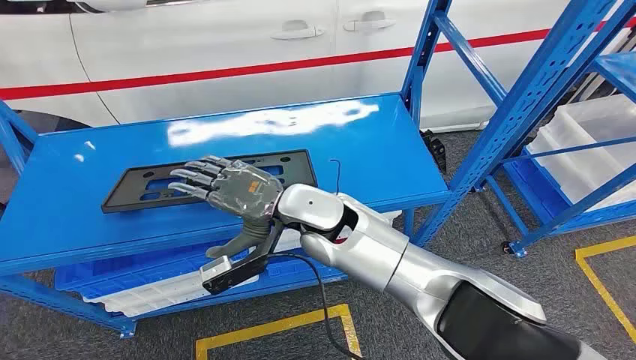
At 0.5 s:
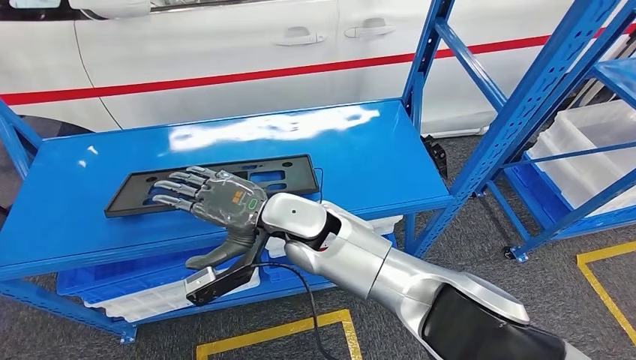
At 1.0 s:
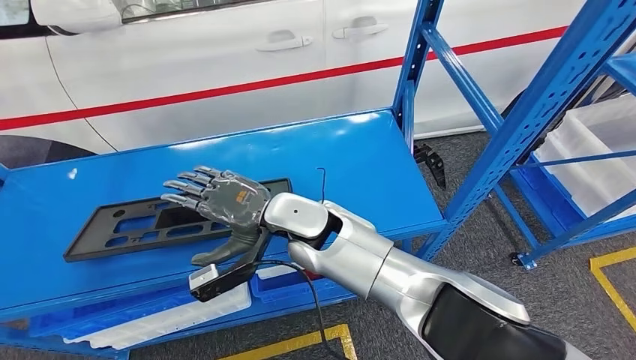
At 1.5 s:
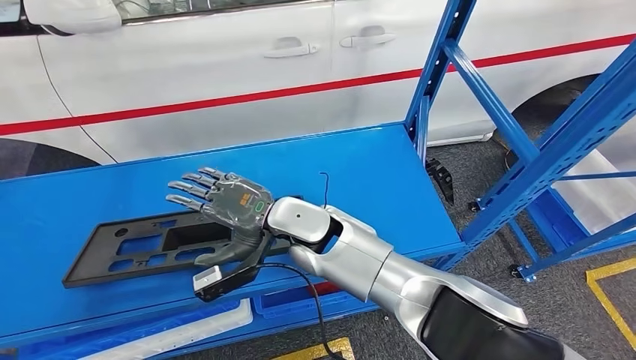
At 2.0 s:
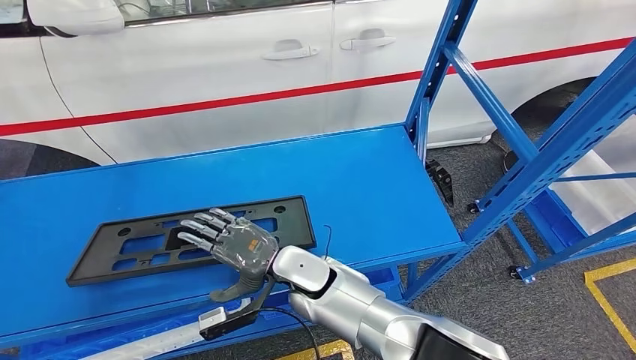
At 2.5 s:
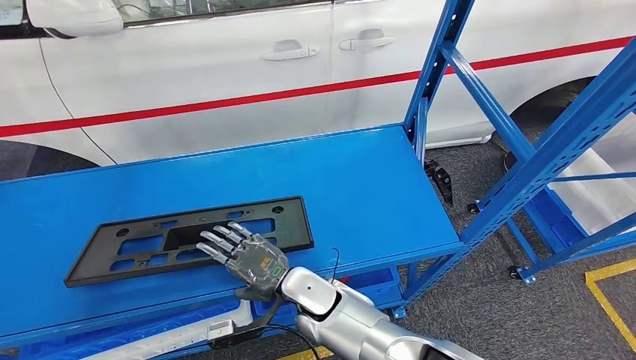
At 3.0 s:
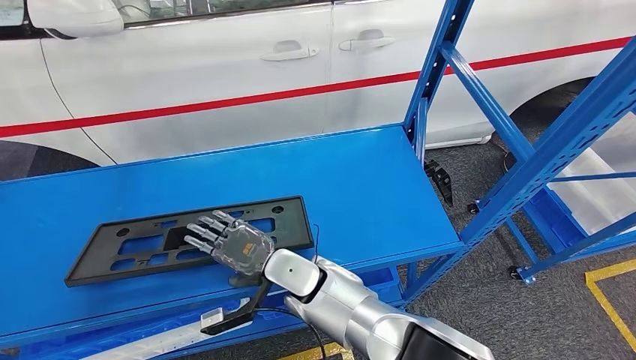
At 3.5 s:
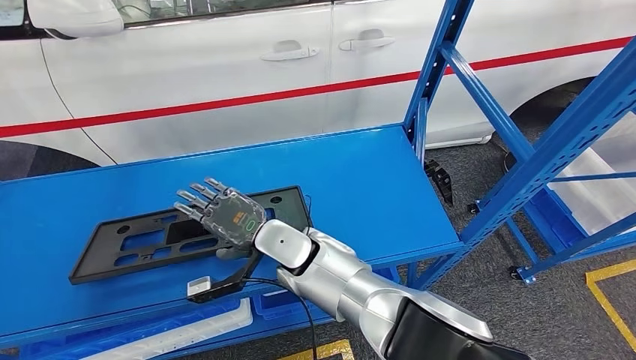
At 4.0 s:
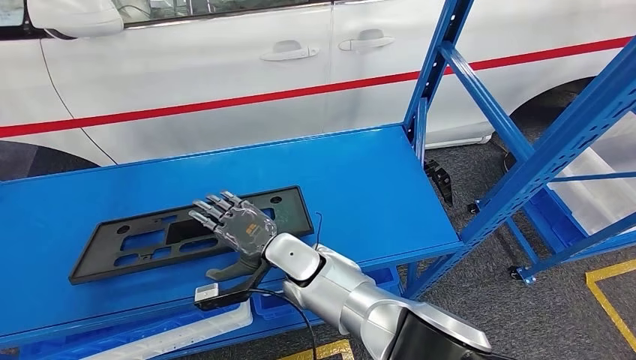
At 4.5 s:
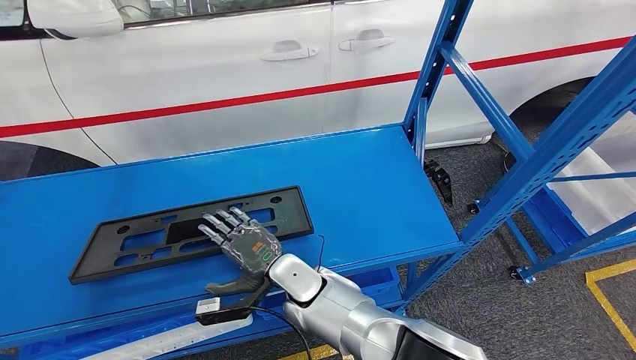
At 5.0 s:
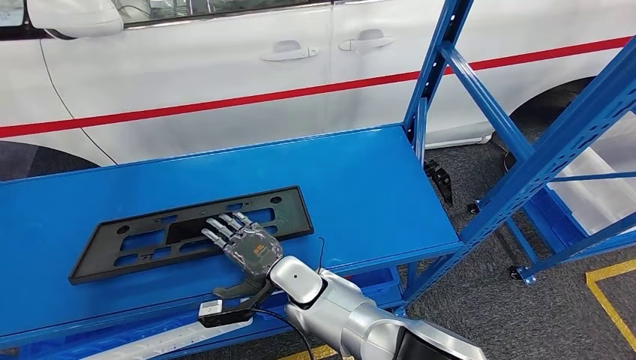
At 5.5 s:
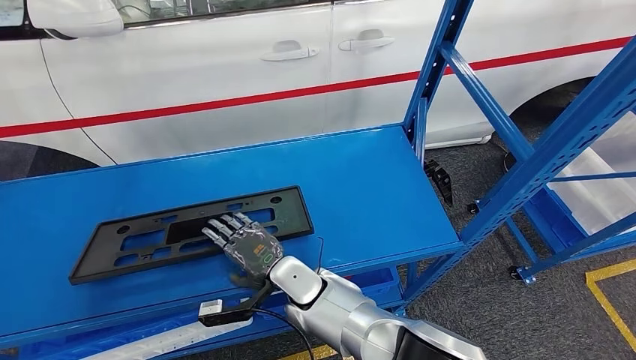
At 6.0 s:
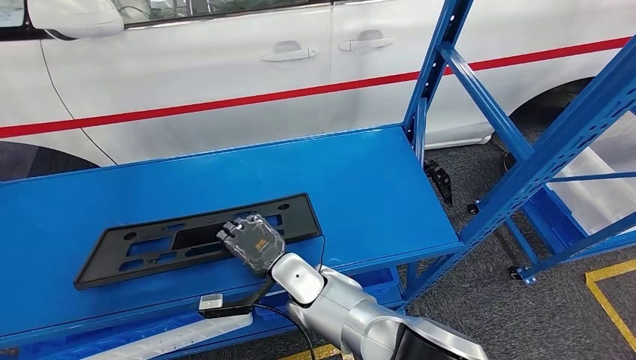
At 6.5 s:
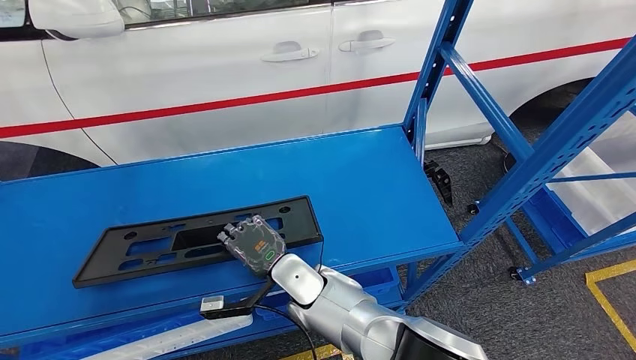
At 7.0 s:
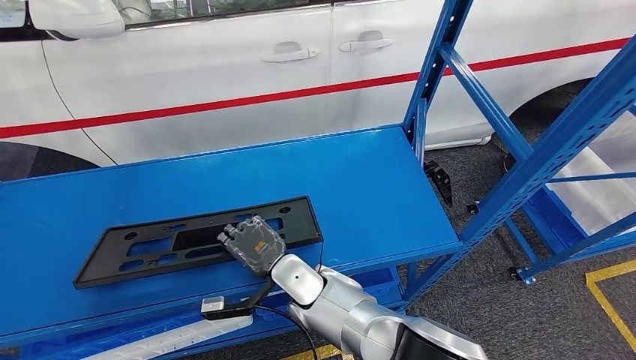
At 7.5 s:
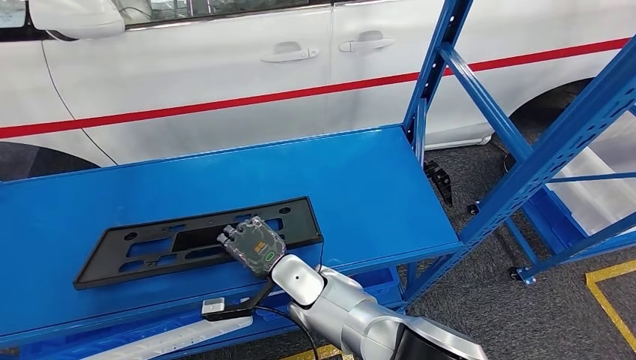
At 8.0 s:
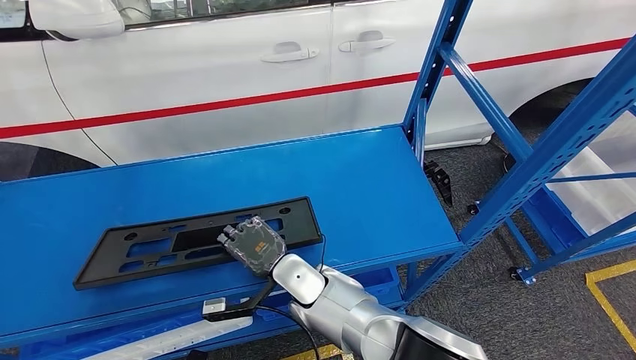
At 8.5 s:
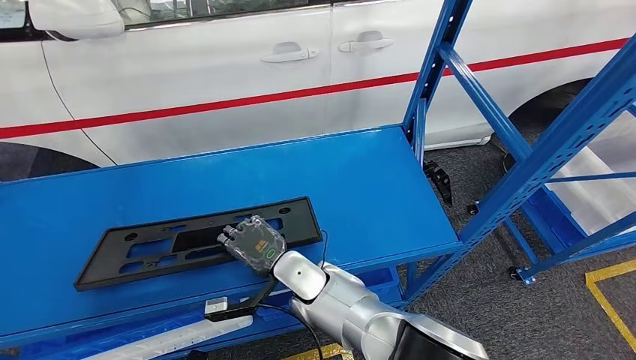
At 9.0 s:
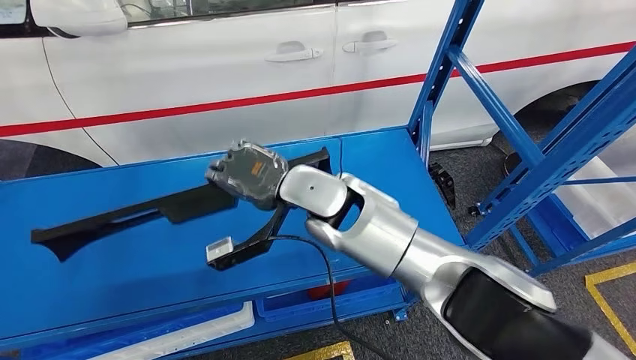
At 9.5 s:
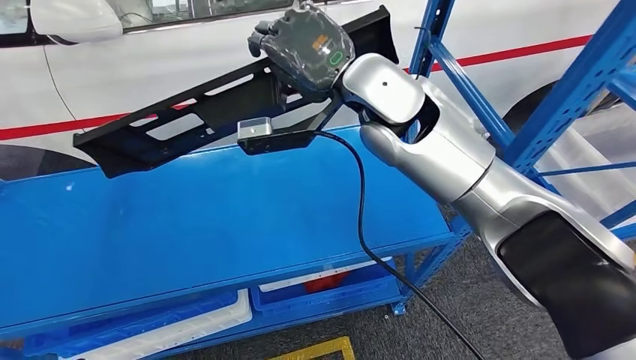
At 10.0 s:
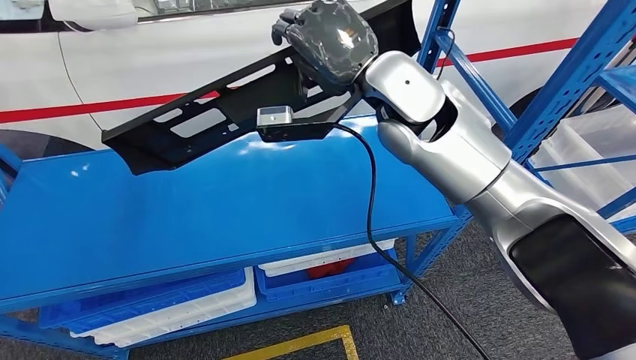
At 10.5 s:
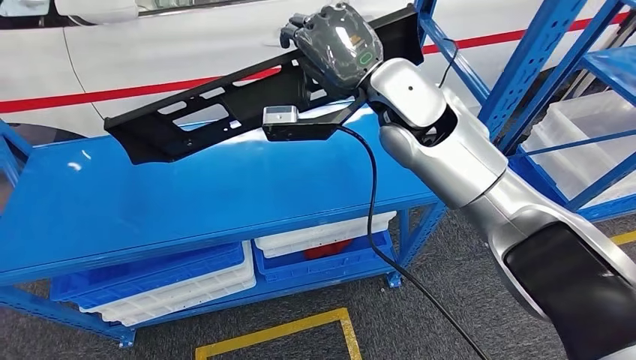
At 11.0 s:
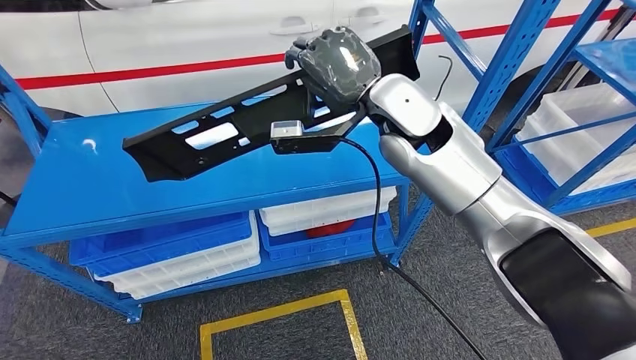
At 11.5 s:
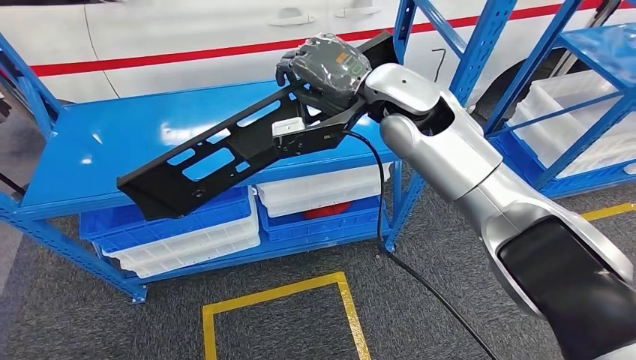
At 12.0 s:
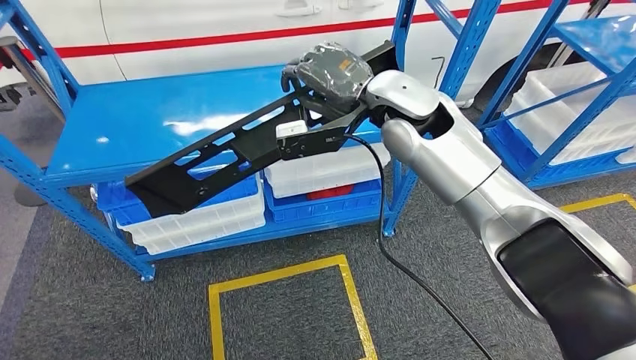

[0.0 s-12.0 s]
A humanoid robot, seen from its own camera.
Step, 0.0 to 9.5 s: Pick up the large material from the shelf.
2.0 to 4.0 s: The right hand goes downward and returns, about 5 cm each way.
4.0 to 6.0 s: The hands make only small movements.

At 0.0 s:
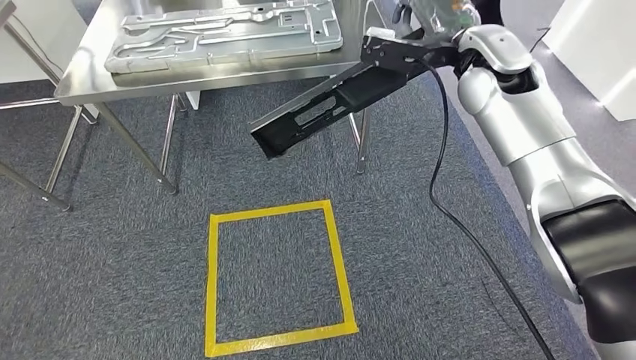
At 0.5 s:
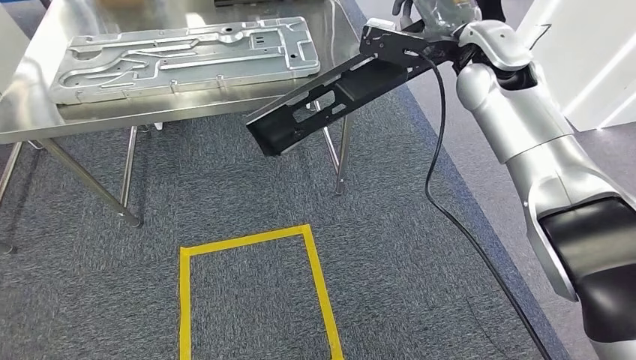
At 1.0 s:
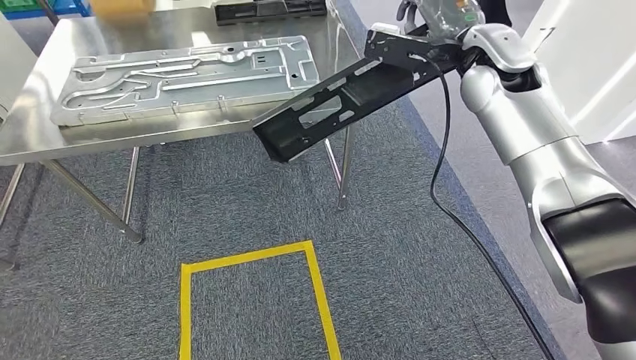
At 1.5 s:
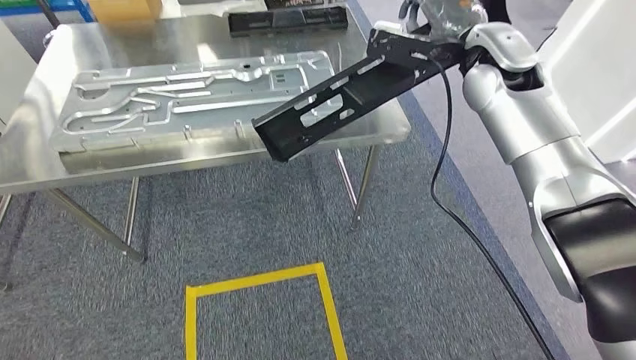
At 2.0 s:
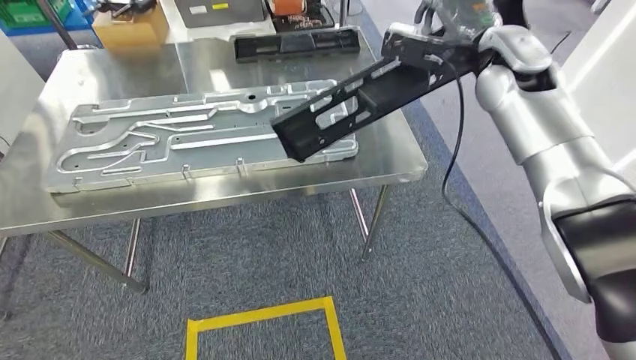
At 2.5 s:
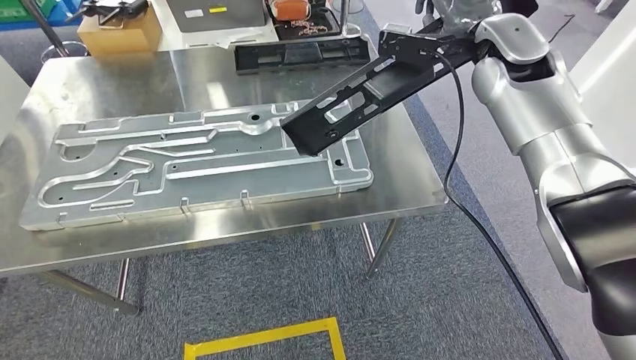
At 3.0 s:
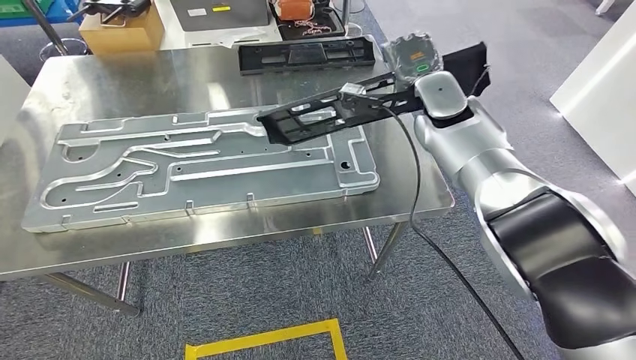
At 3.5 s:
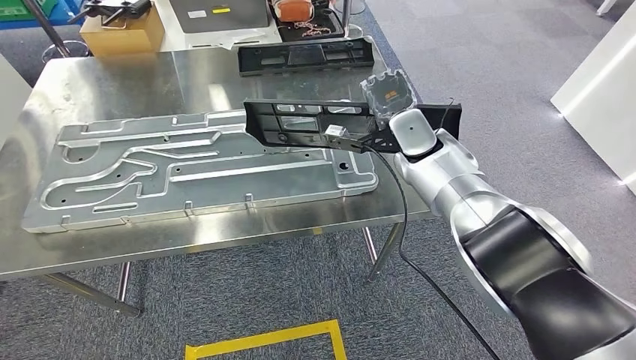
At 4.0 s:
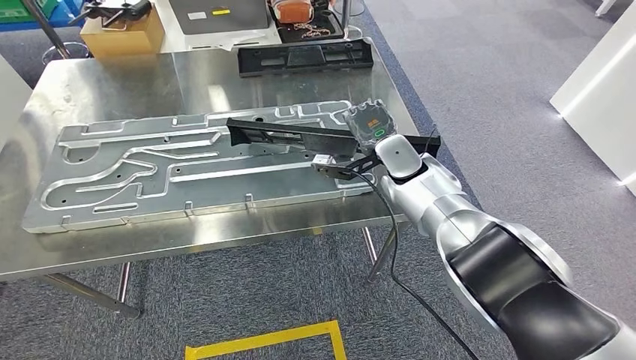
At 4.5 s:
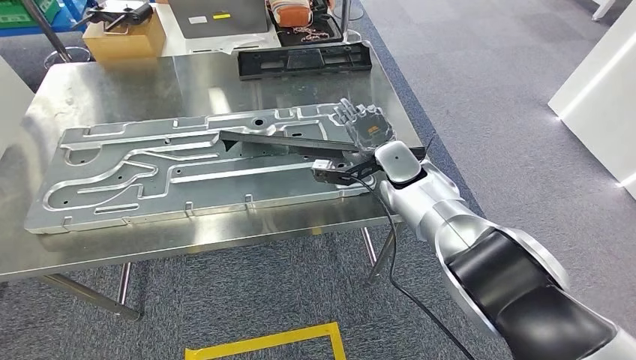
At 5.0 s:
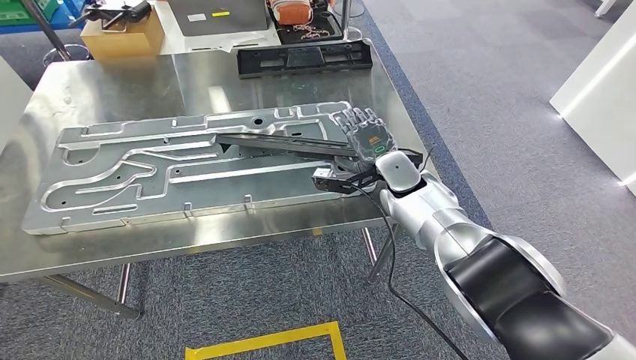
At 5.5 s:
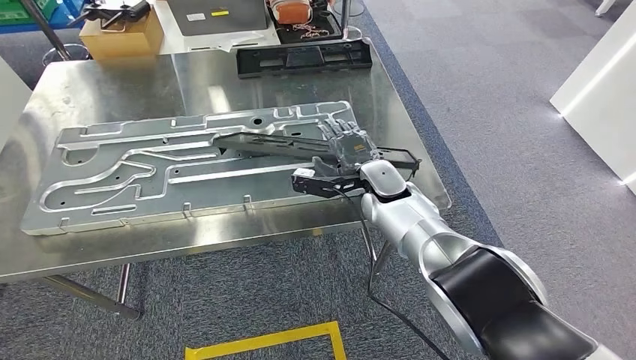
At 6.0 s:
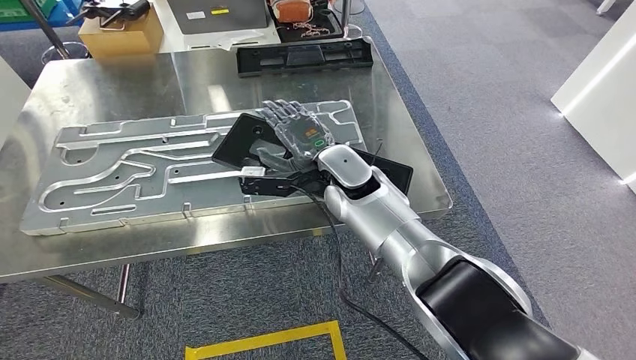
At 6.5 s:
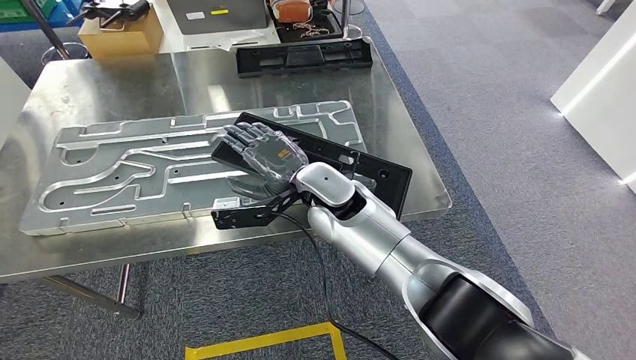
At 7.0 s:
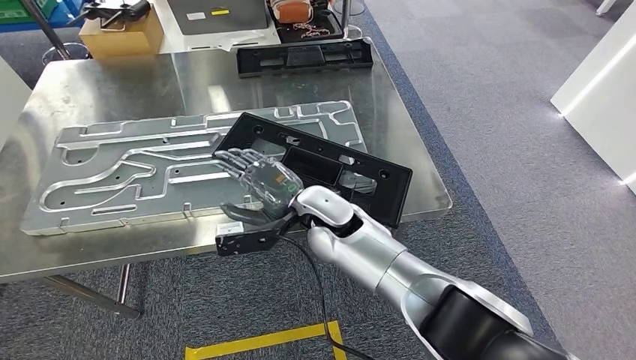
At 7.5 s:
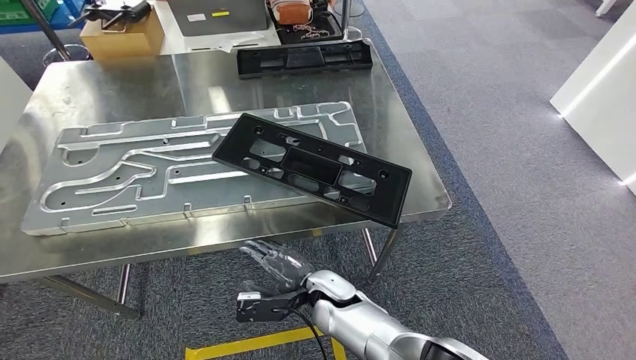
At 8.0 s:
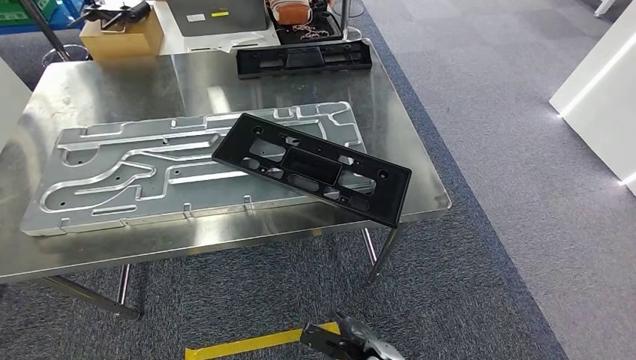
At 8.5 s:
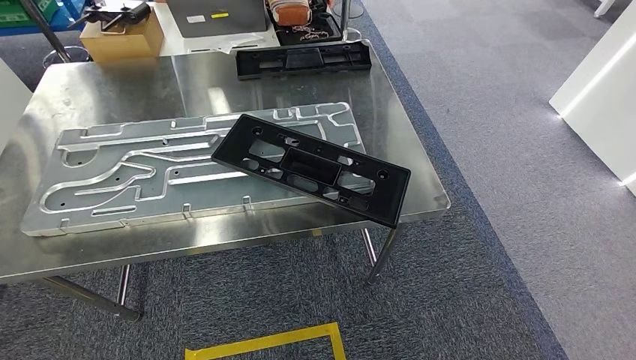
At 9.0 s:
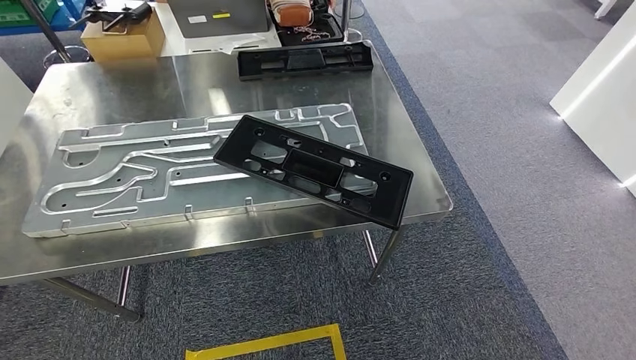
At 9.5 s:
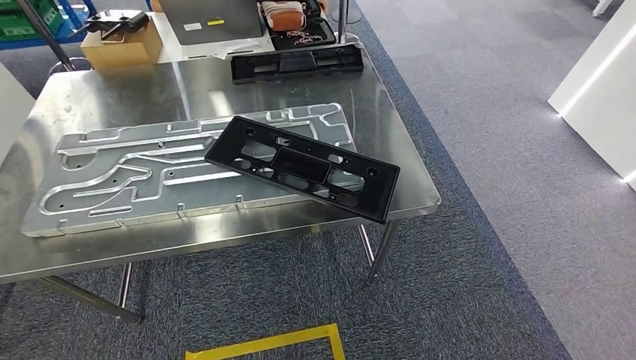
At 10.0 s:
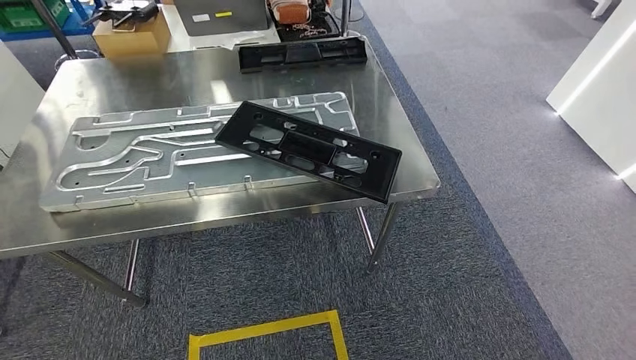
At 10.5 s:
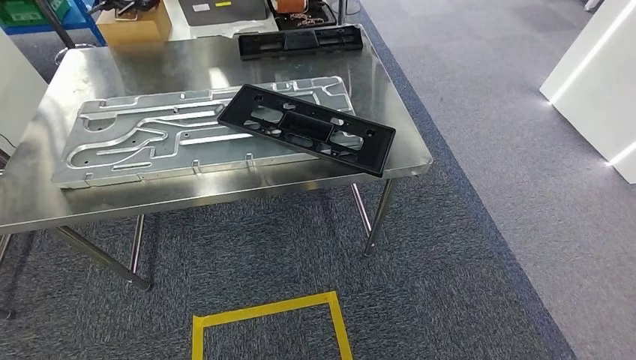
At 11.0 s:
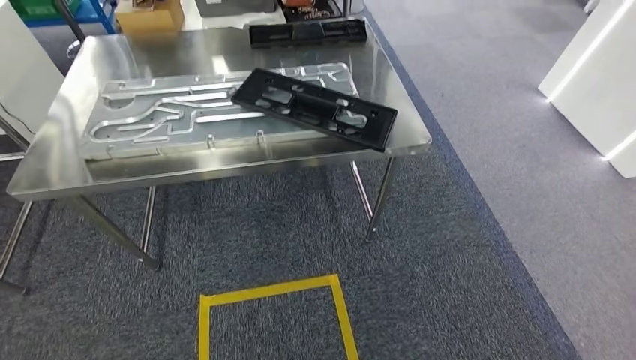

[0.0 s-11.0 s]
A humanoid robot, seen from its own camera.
Step, 0.0 to 2.0 s: Move the large material to the workbench.
Step, 4.0 to 9.0 s: Insert the large material into the corresponding slot on the workbench.
5.5 to 7.5 s: The right hand moves backward, downward and to the left, roughly 25 cm.
7.5 to 9.0 s: The right hand goes approximately 30 cm backward, downward and to the right.
